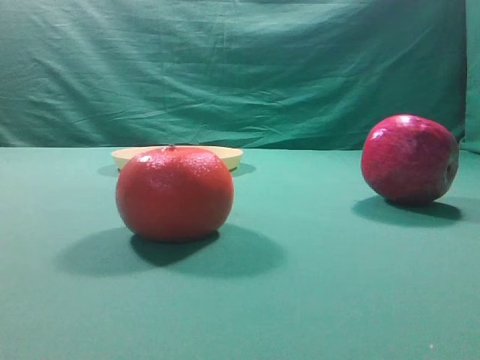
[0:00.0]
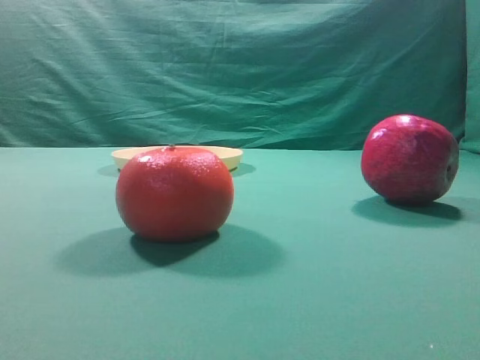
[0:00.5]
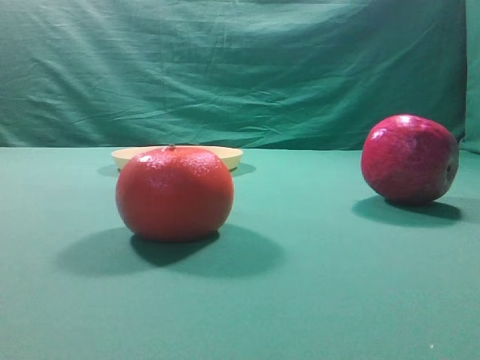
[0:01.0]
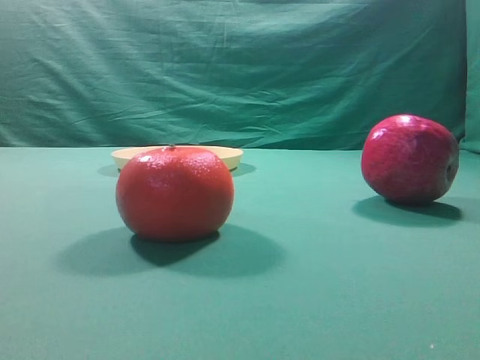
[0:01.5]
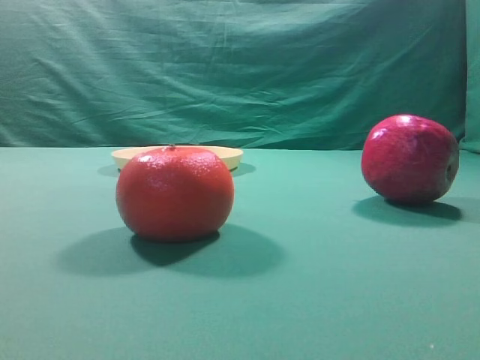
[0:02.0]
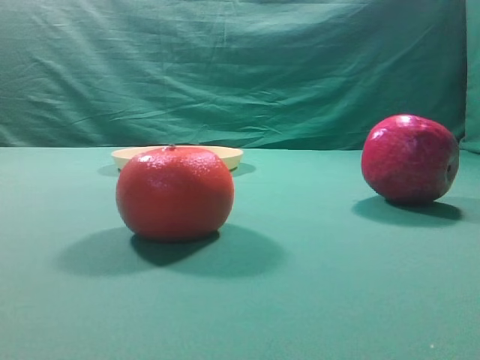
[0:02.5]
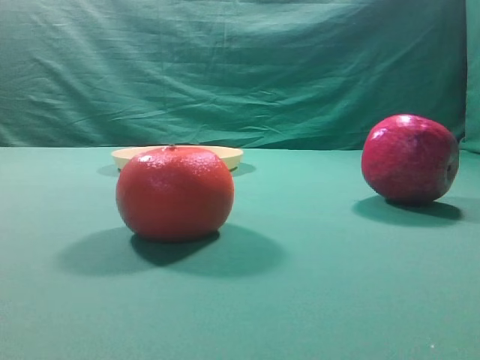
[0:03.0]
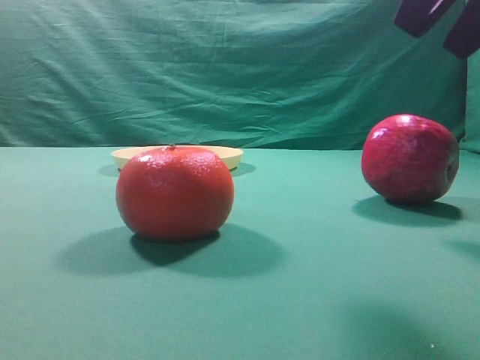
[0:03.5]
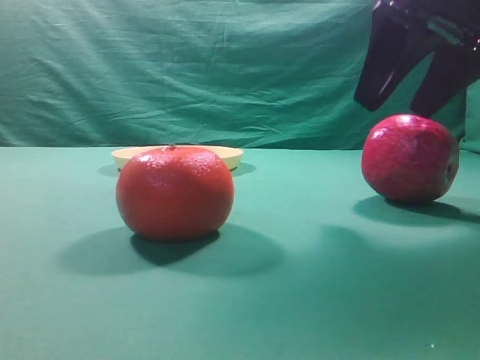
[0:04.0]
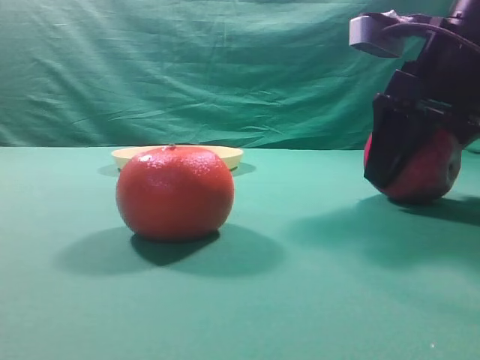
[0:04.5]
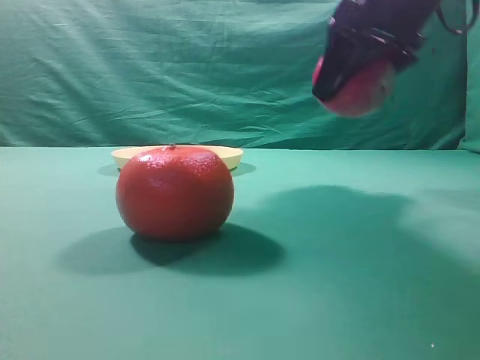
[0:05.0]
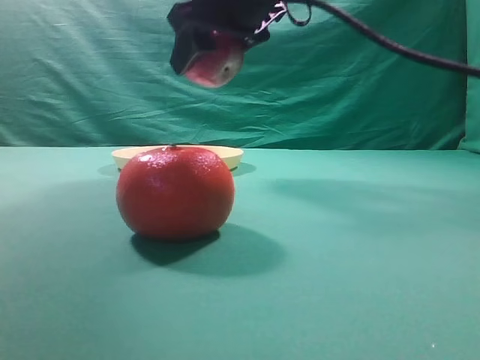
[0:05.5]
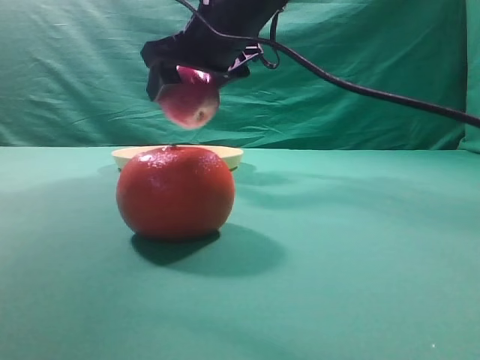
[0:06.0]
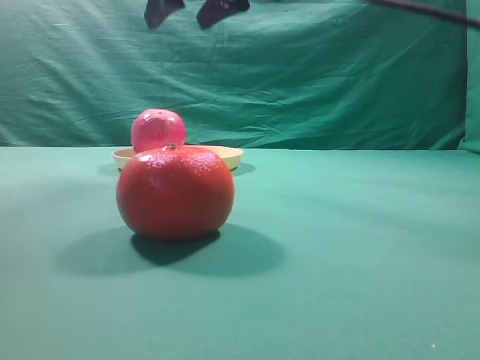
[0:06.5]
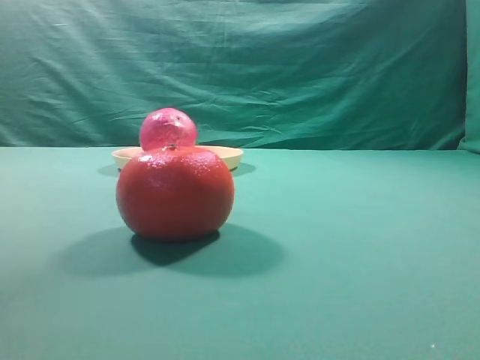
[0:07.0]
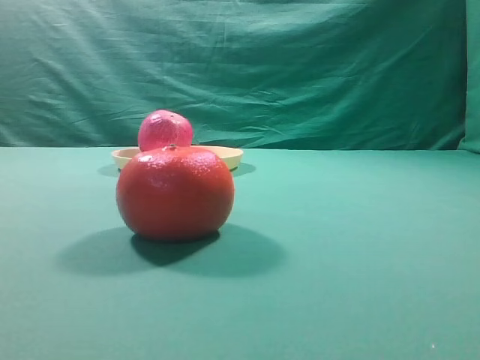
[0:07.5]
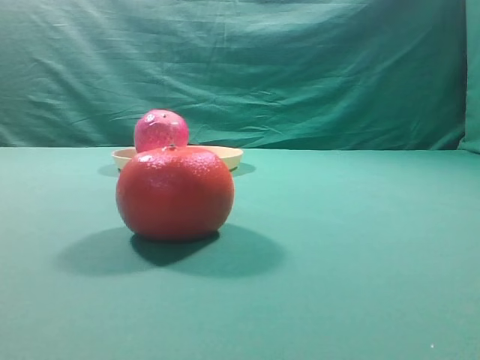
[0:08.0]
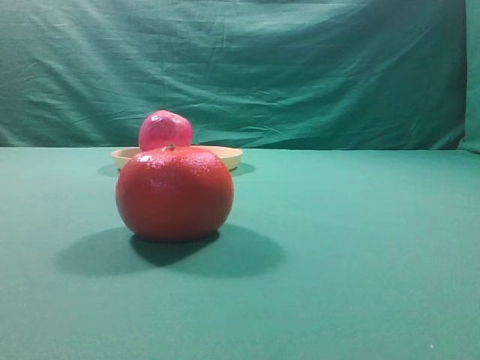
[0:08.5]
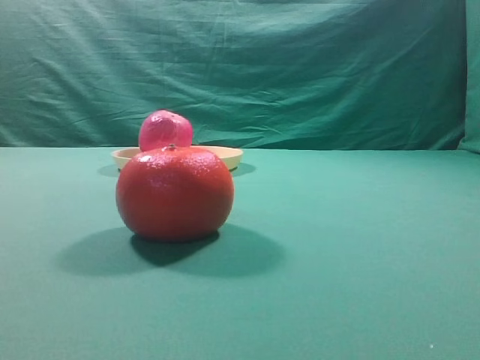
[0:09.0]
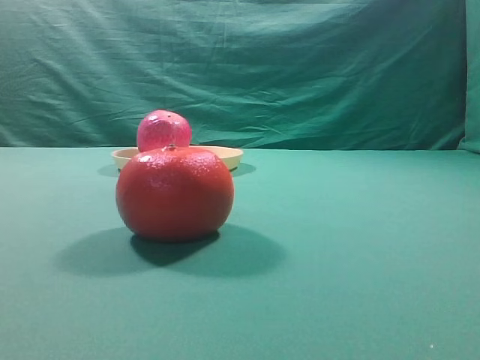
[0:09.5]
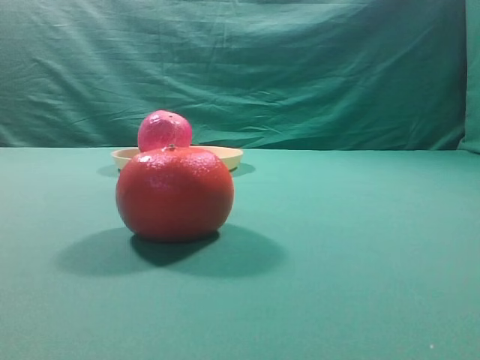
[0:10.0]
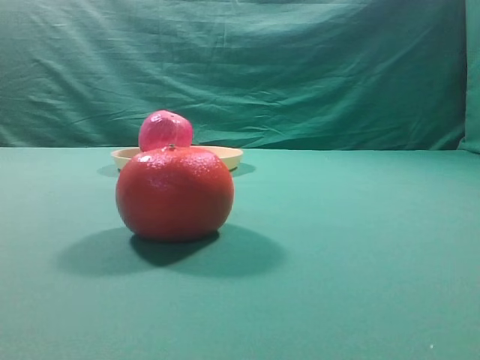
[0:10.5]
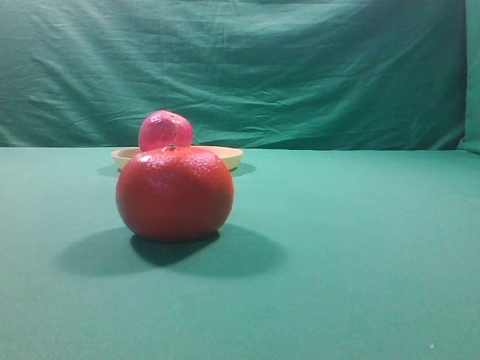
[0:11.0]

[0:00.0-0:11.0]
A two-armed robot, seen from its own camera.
Task of the whole recording: grasp the apple and place it into the yellow plate.
Step, 0:00.0 to 0:04.5: Grasp the fruit that can keep the doctor away.
Step, 0:05.0 to 0:06.0: Place the picked object into the yellow plate.

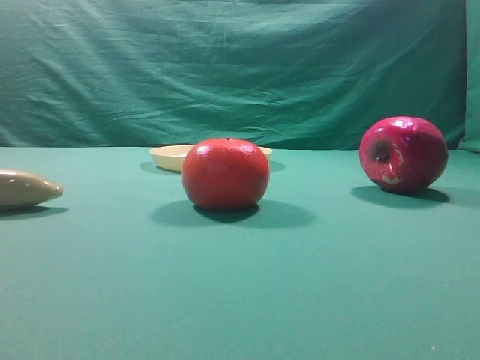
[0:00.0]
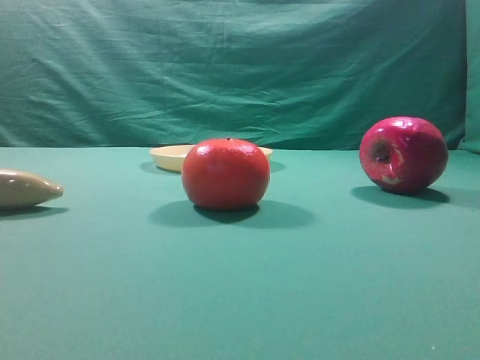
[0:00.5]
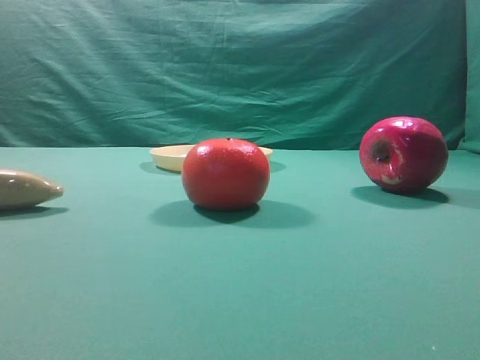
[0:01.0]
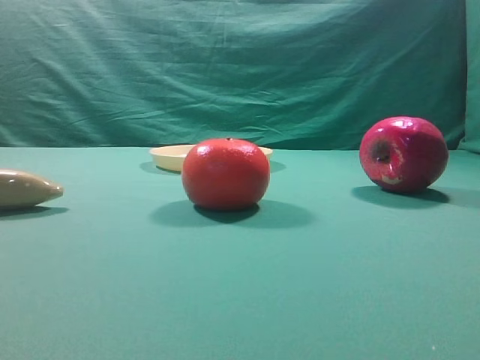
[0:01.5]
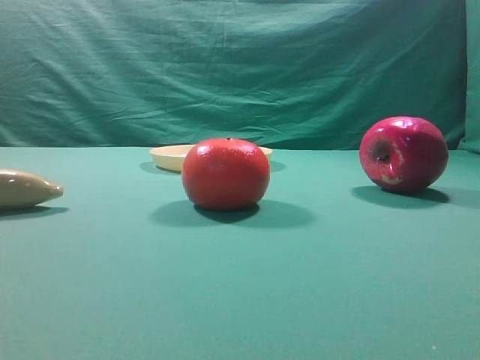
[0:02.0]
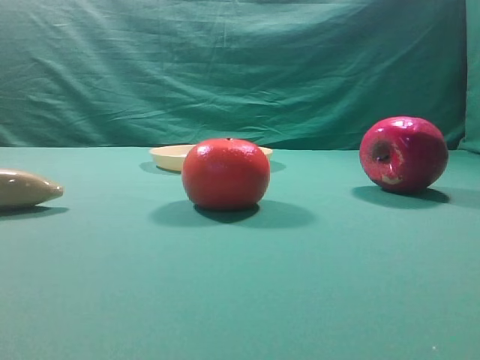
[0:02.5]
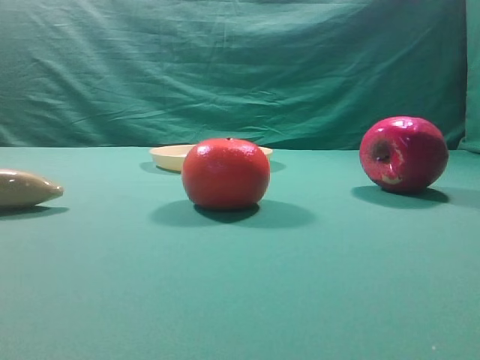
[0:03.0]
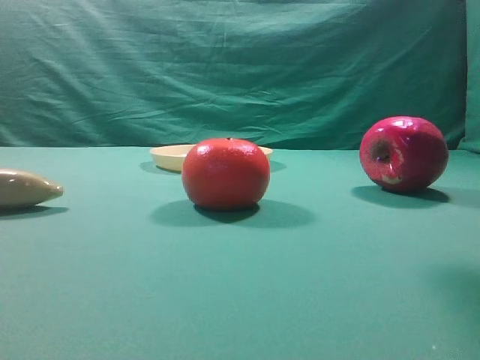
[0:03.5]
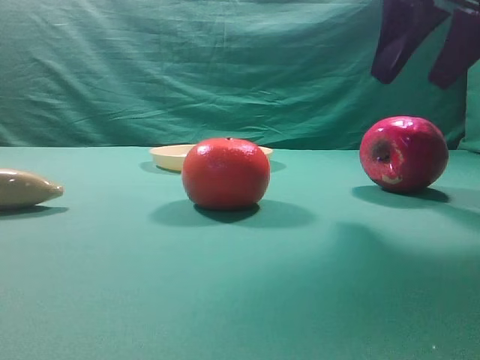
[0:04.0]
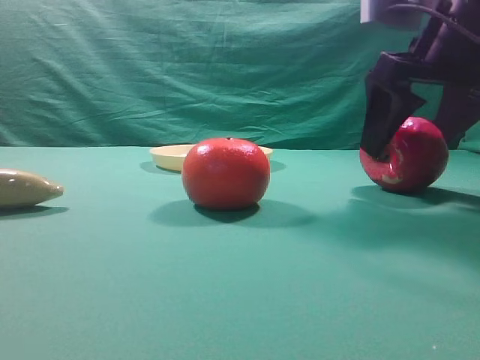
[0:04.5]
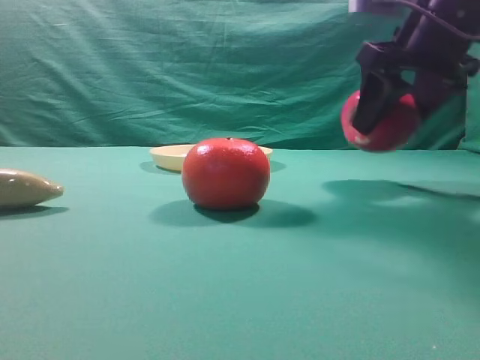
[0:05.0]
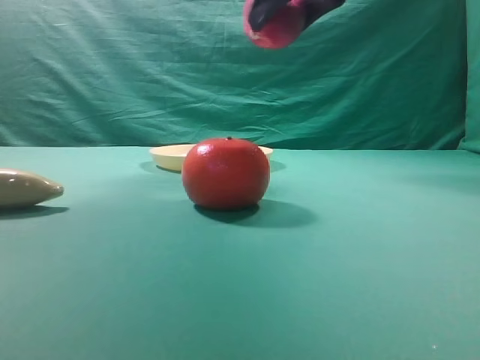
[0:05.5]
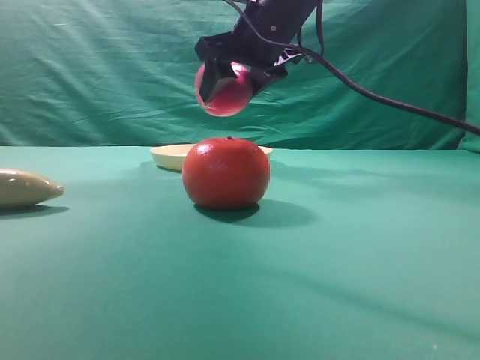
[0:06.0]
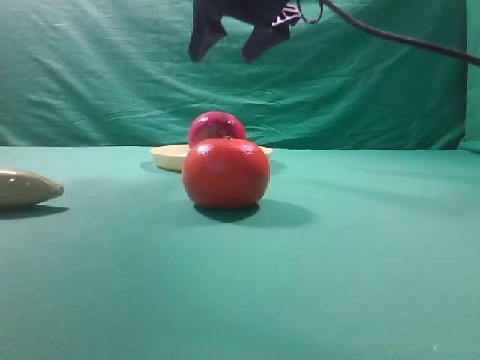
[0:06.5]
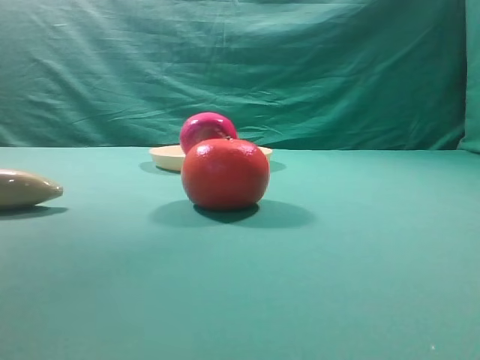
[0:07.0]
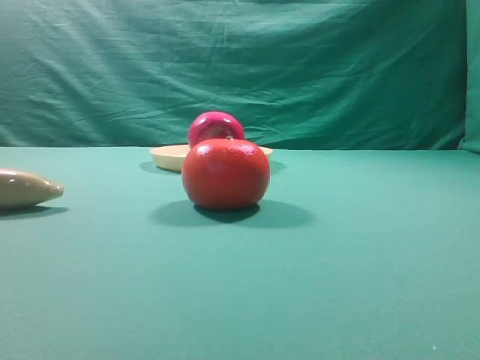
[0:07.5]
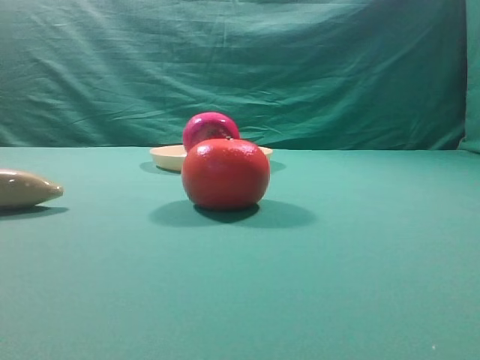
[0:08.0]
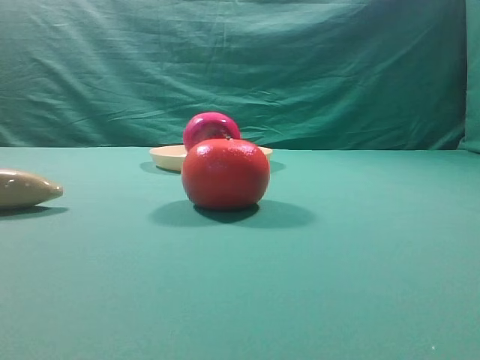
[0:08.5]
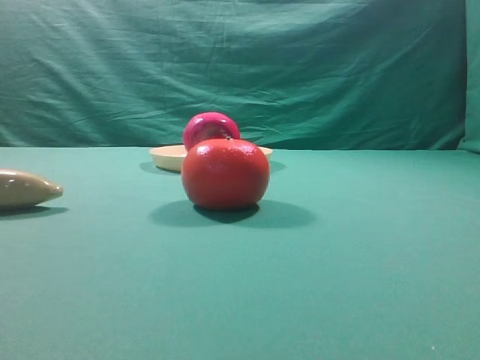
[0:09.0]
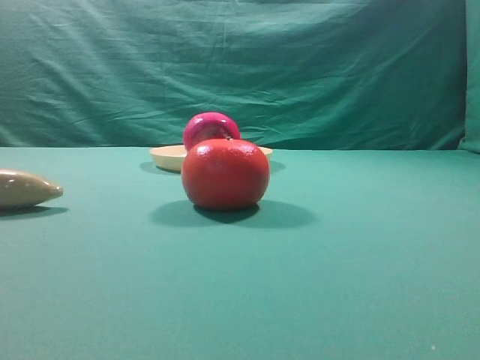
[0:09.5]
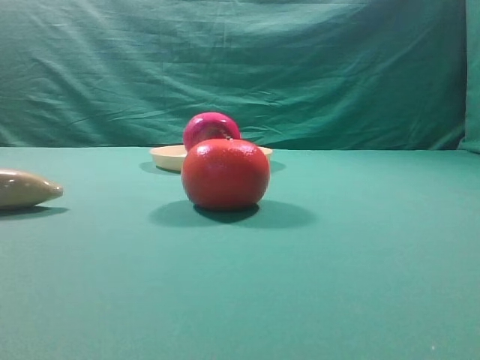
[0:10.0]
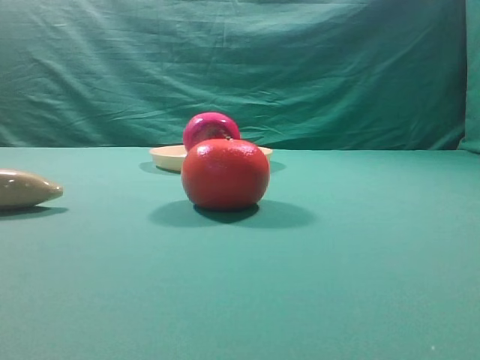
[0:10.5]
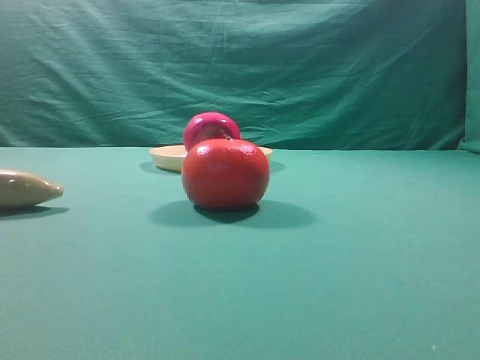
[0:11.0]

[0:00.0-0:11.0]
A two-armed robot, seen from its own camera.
Task of the whole recording: grasp the apple and place it into the yellow plate.
Step, 0:00.0 to 0:04.5: Grasp the fruit that can keep the doctor away.
Step, 0:05.5 to 0:06.0: Place the picked object into the yellow plate.

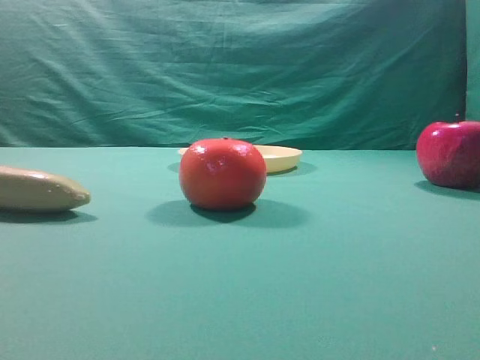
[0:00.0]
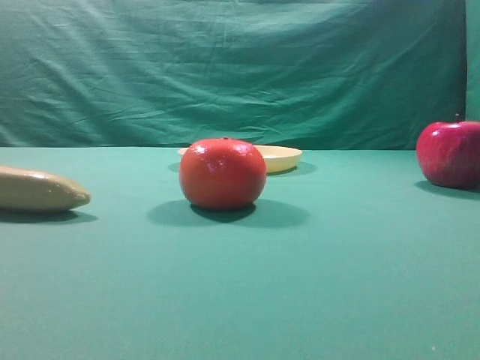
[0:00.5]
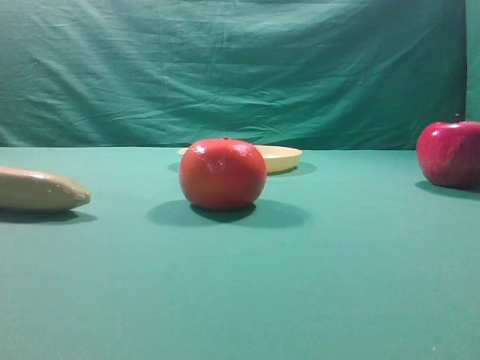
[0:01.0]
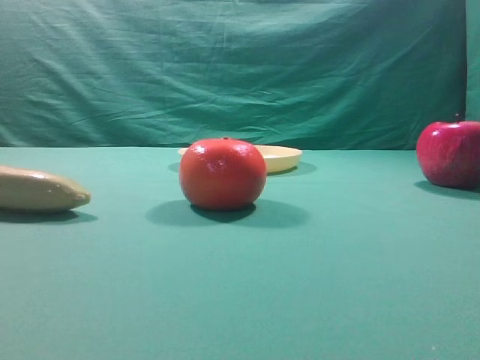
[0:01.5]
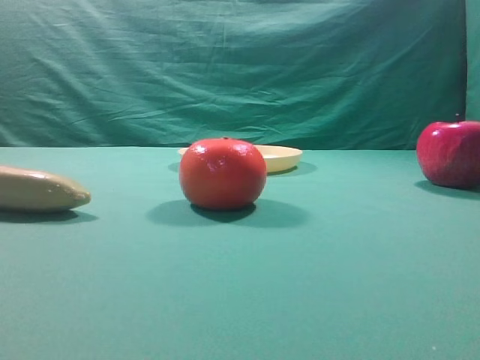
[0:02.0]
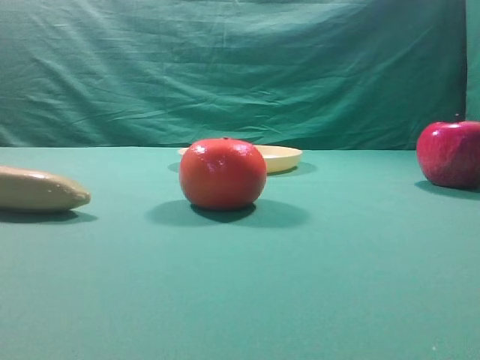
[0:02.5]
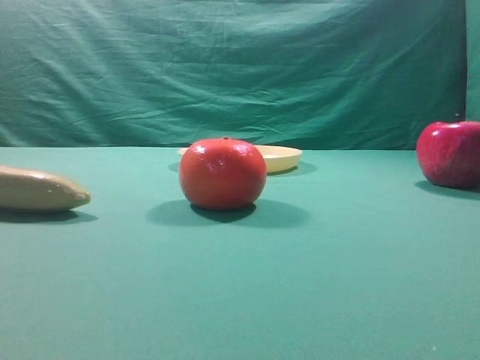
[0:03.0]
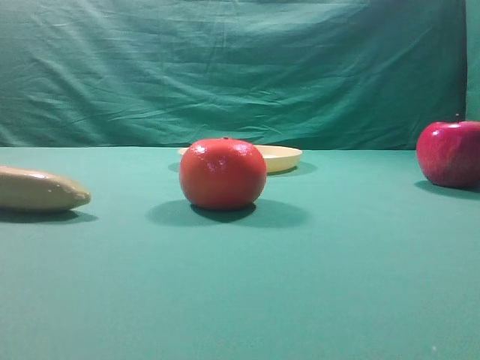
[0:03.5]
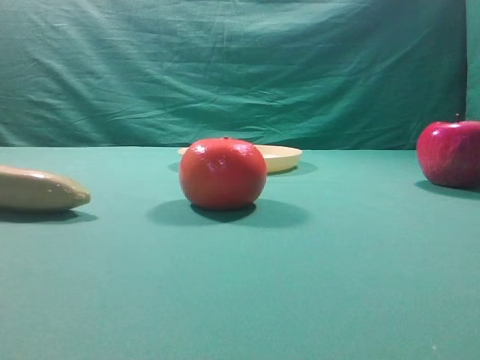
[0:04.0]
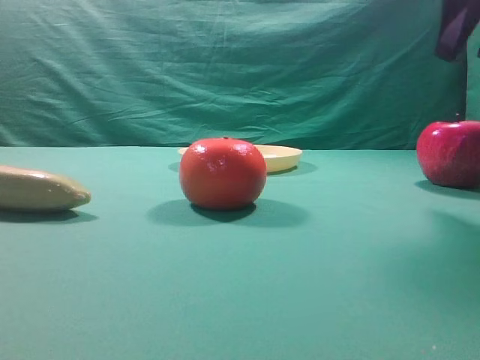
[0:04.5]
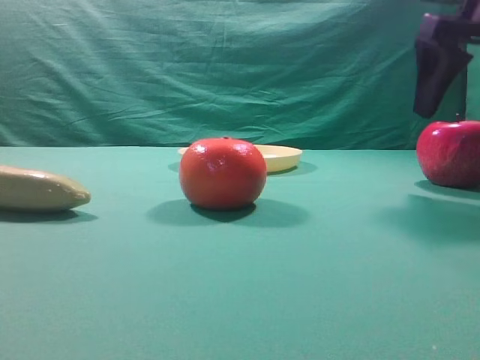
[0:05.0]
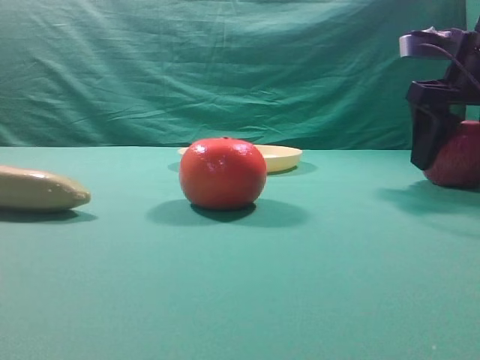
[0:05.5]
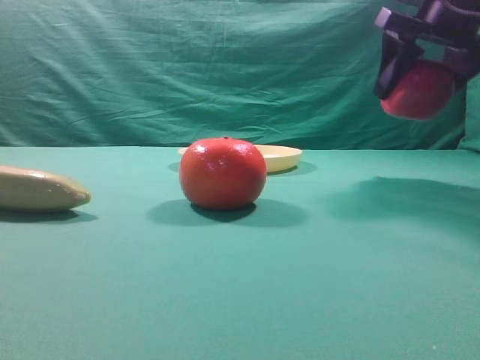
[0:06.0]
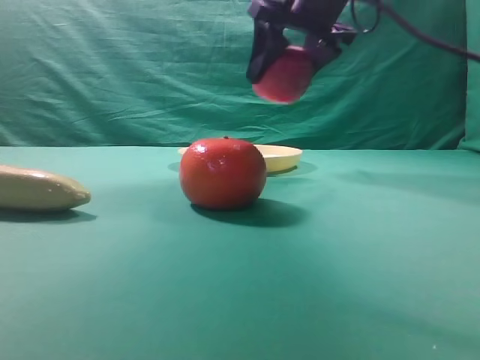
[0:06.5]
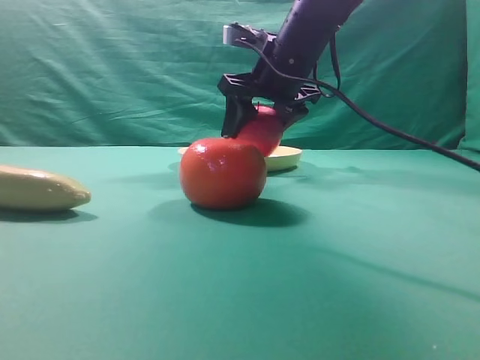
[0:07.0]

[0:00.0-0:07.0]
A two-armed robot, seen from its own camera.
Task of the whole recording: grasp the apple and place it into the yellow plate.
Step, 0:00.0 to 0:05.5: Grasp the fruit that can keep the doctor away.
